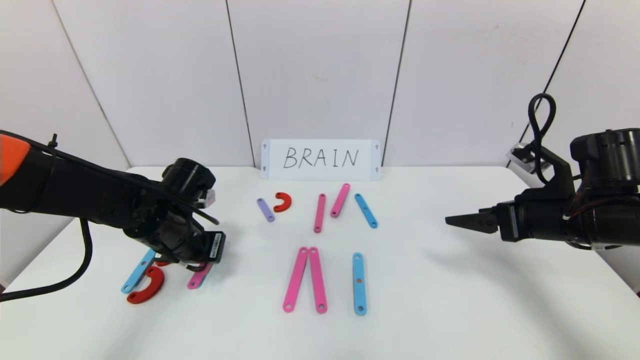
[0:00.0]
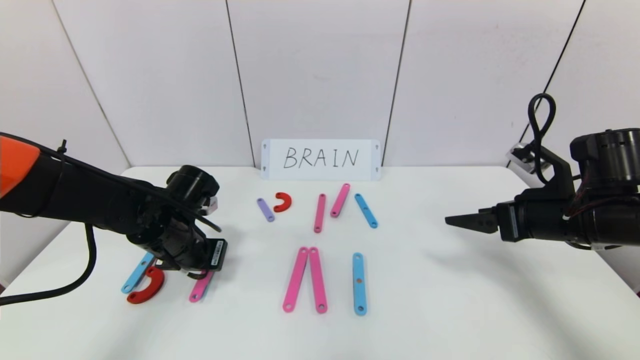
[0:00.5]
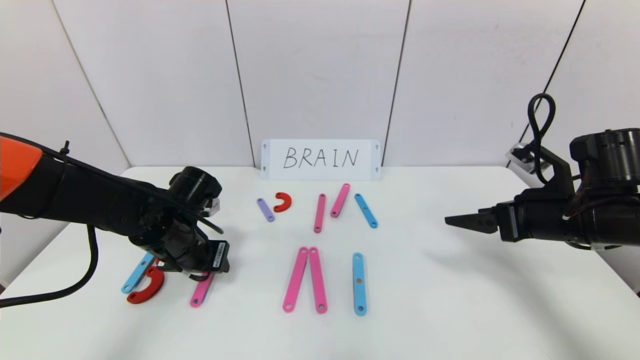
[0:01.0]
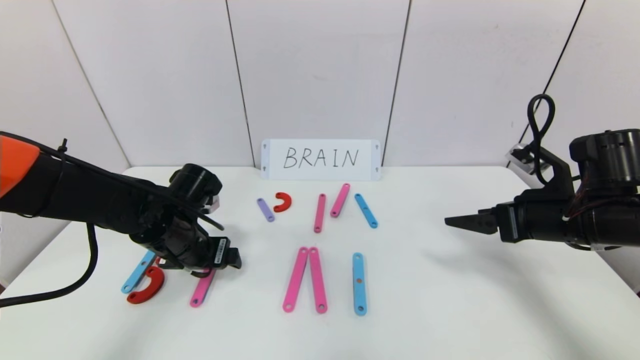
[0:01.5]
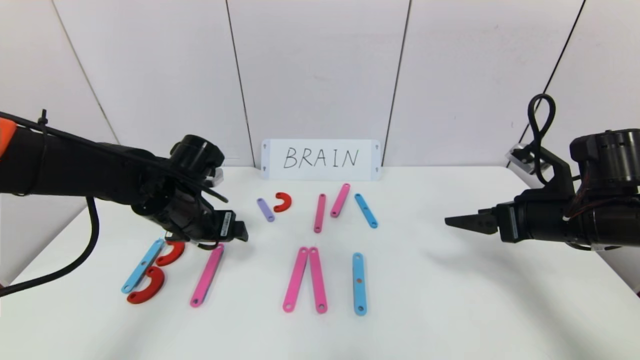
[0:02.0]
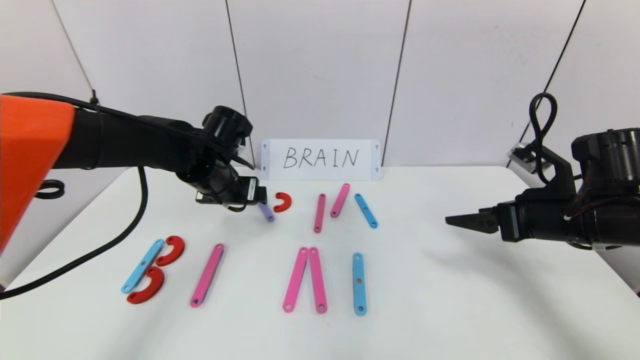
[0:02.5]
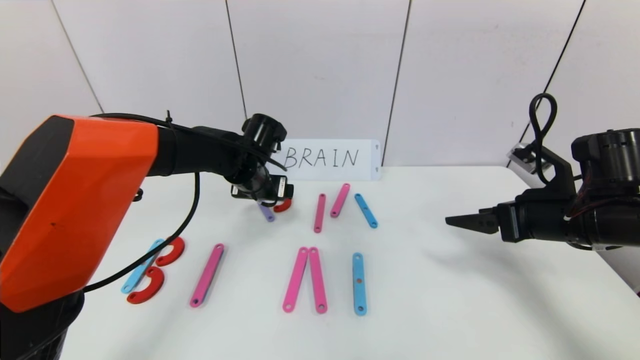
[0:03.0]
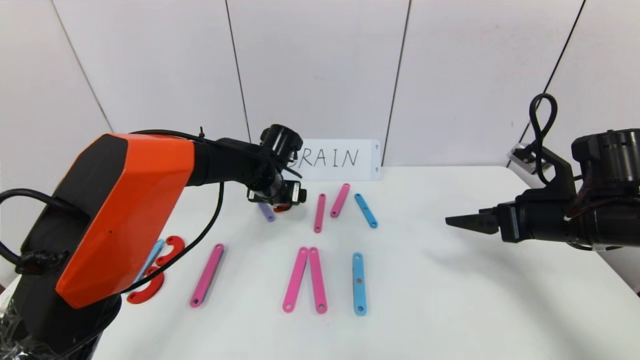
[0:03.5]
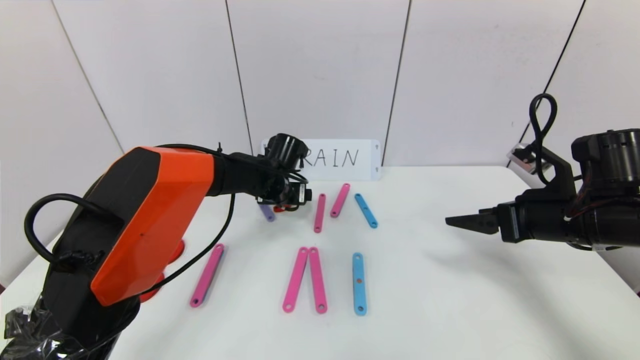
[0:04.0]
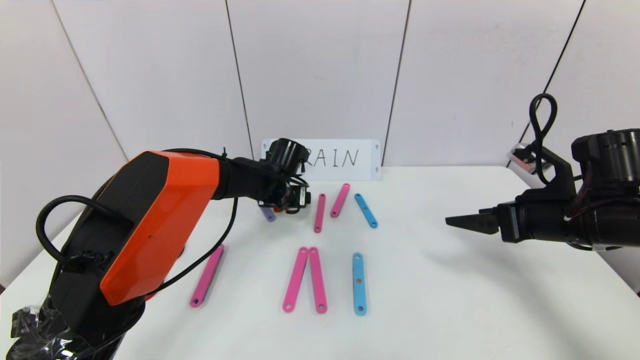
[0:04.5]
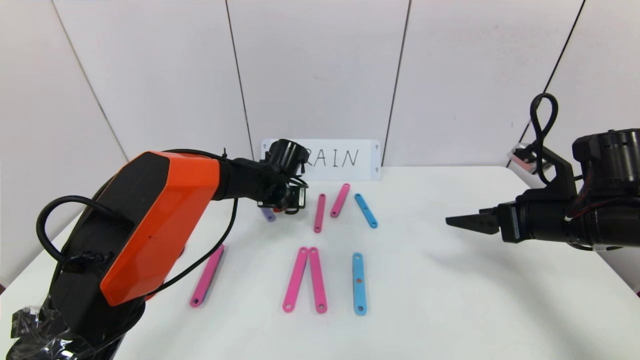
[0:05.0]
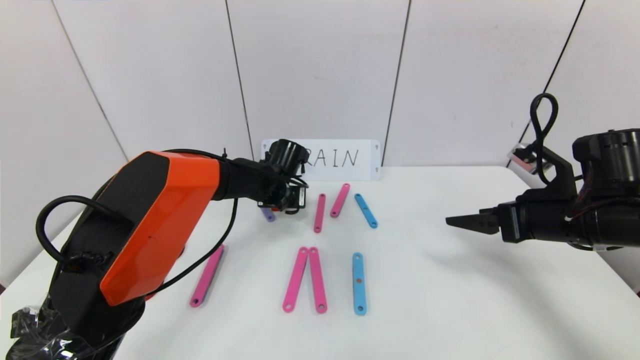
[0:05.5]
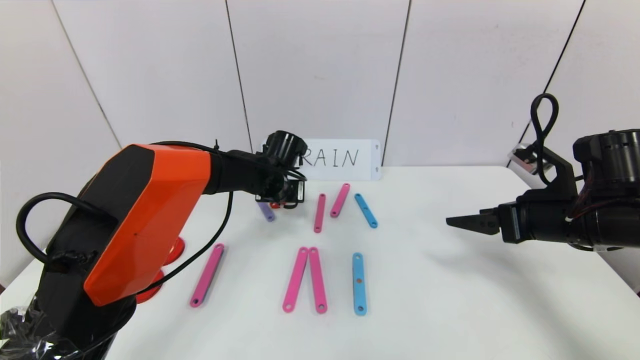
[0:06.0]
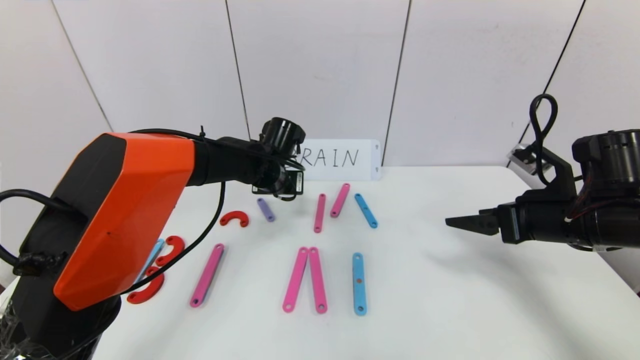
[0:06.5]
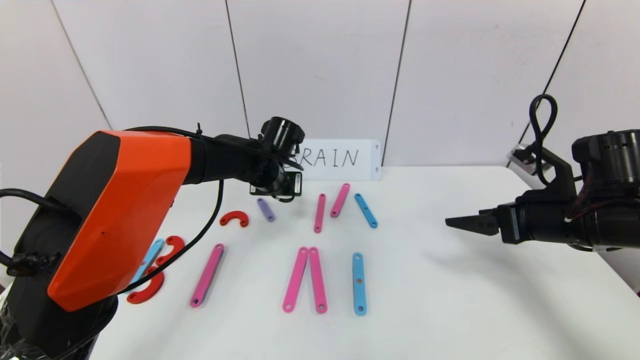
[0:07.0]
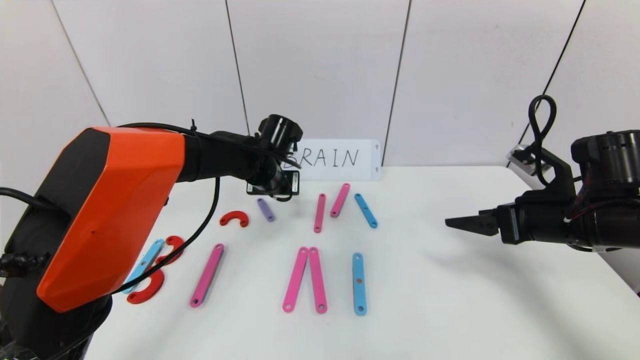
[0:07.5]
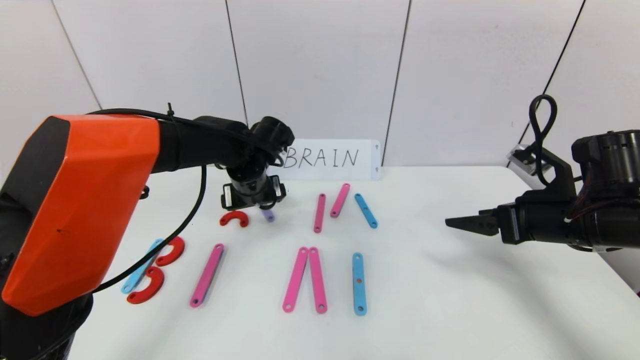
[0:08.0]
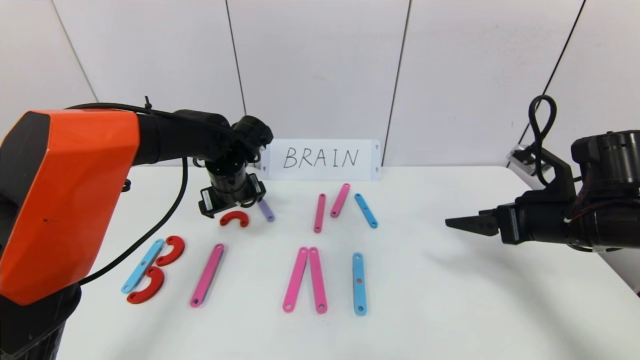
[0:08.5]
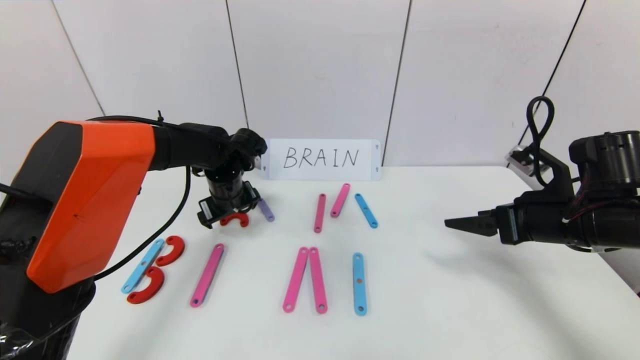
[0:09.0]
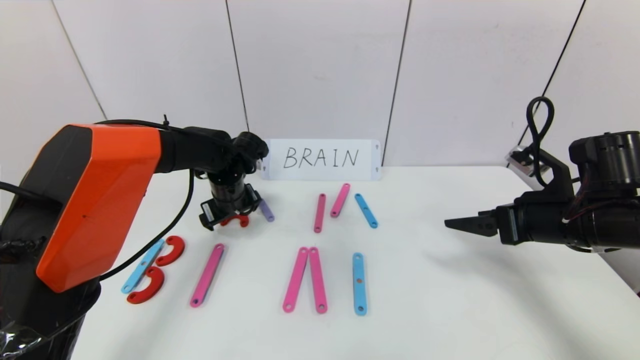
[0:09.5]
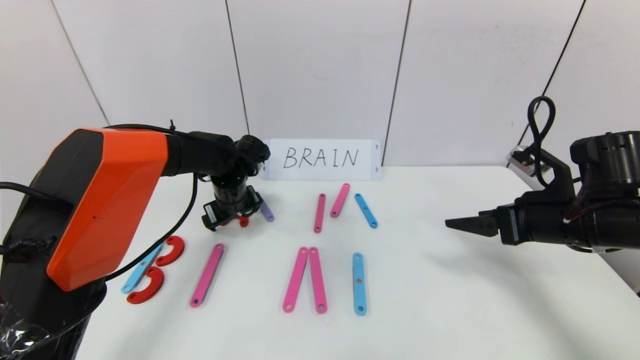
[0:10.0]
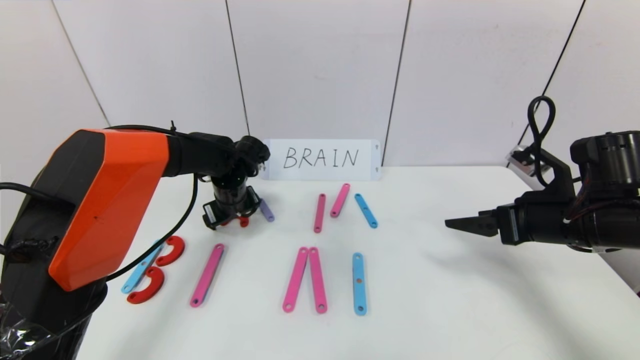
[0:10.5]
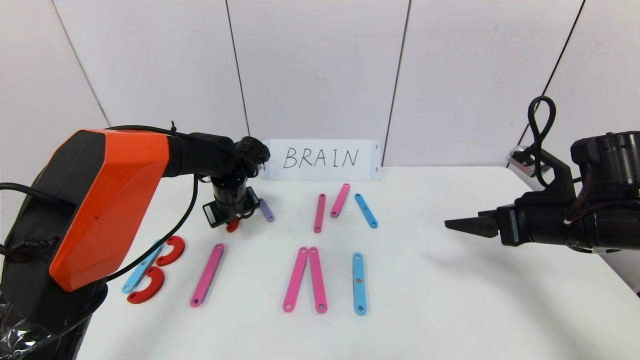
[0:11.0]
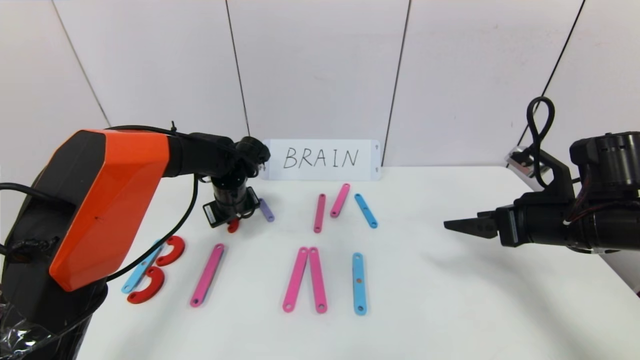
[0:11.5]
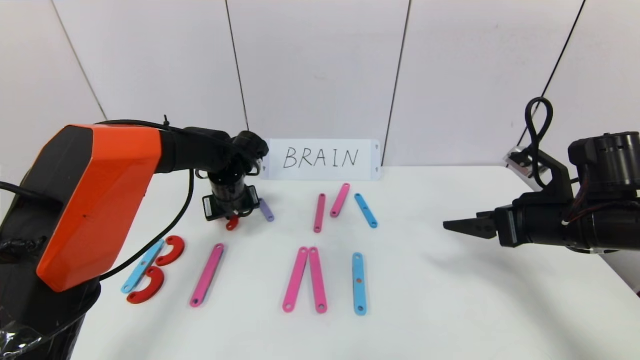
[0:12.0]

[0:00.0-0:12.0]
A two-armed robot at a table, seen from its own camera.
Task of the whole recording: rearrange the word baai as brain.
0.0 to 2.0 s: The left gripper opens its fingers.
2.0 to 4.0 s: The left gripper travels forward and to the right by some 15 cm.
4.0 to 6.0 s: The left gripper closes up.
6.0 to 8.0 s: The left gripper shifts by some 5 cm, and opens its fingers.
8.0 to 10.0 s: The left gripper ends up approximately 5 cm from where it was.
10.0 to 12.0 s: The left gripper closes.

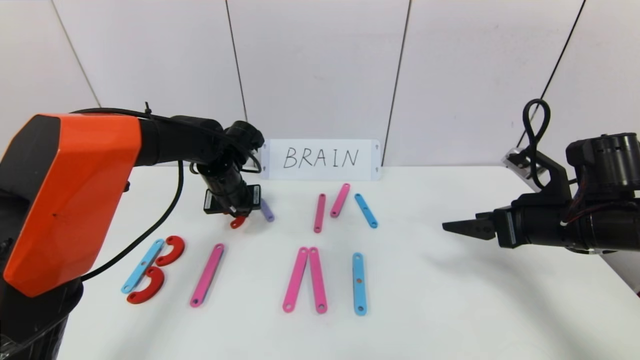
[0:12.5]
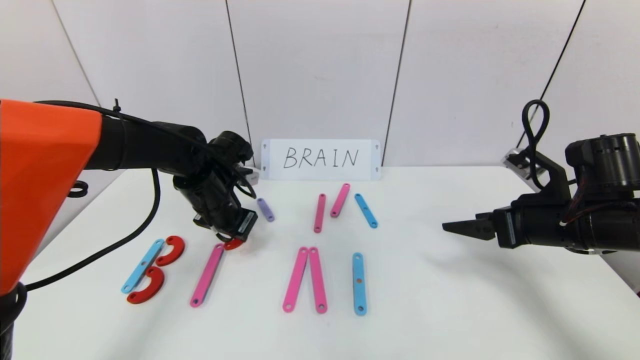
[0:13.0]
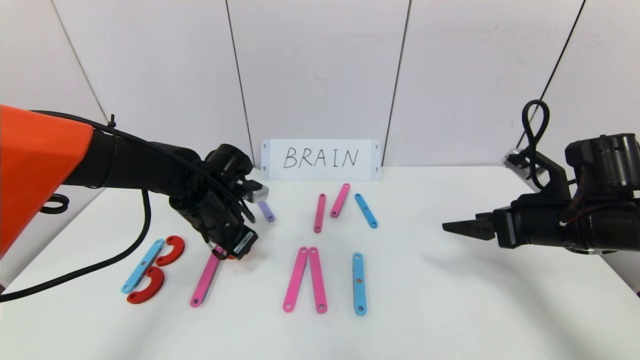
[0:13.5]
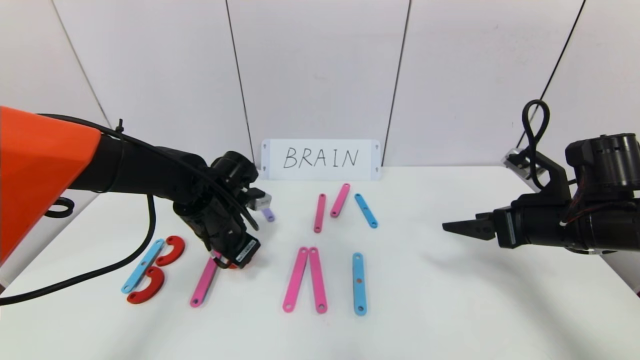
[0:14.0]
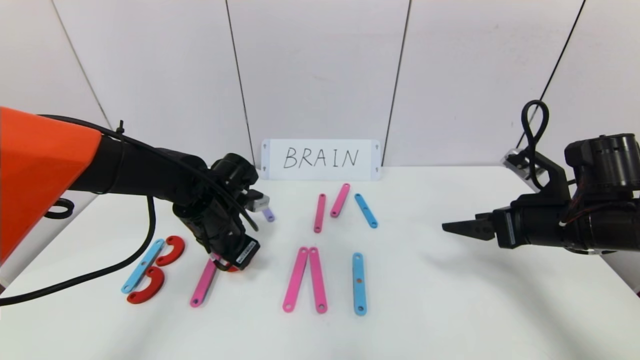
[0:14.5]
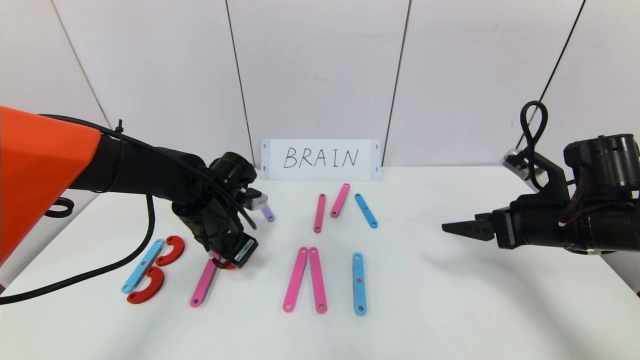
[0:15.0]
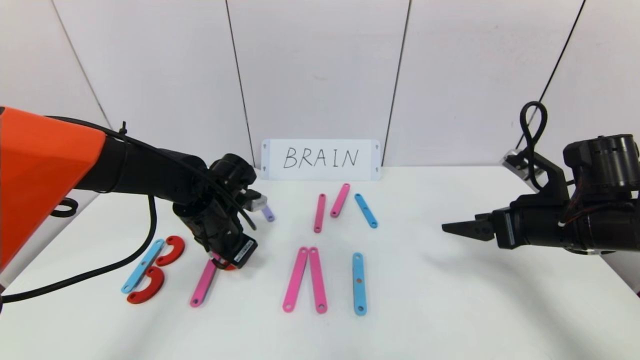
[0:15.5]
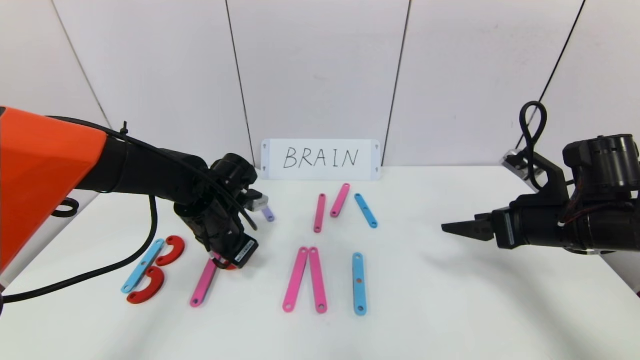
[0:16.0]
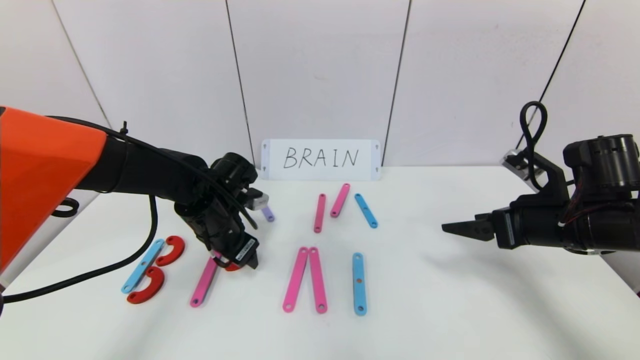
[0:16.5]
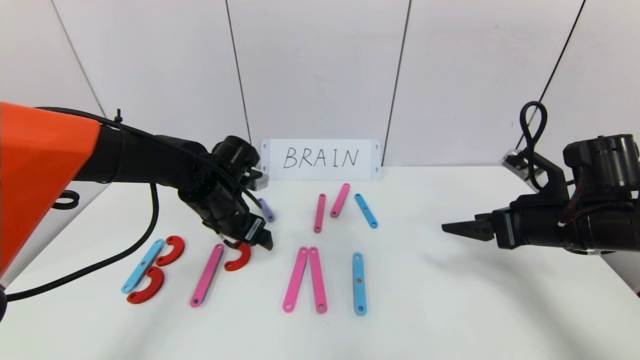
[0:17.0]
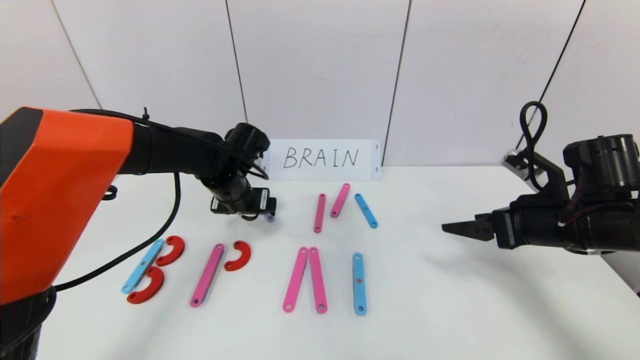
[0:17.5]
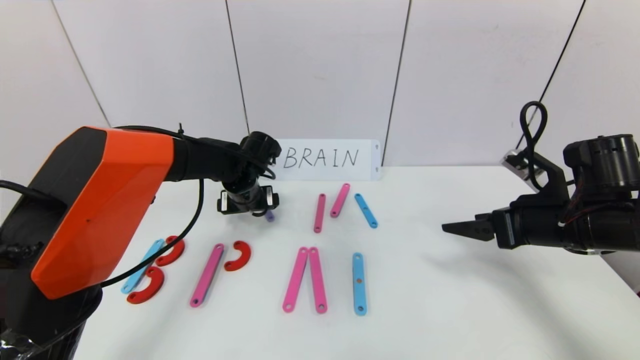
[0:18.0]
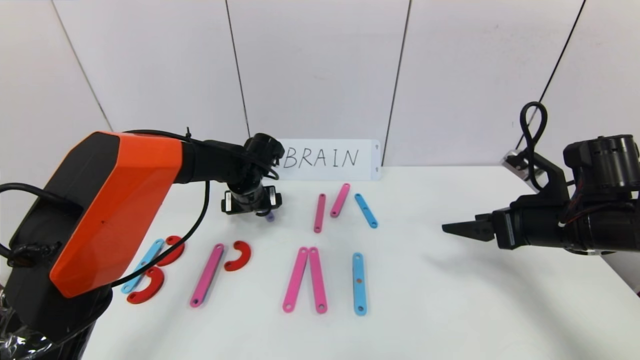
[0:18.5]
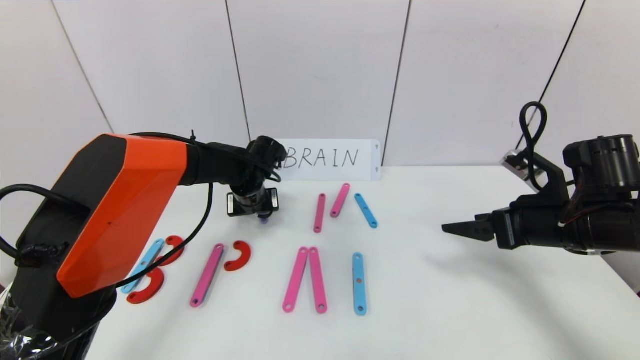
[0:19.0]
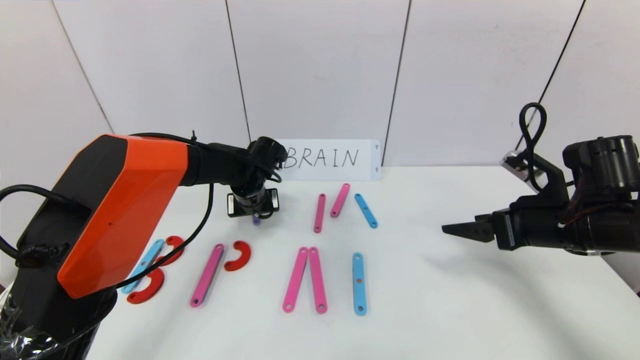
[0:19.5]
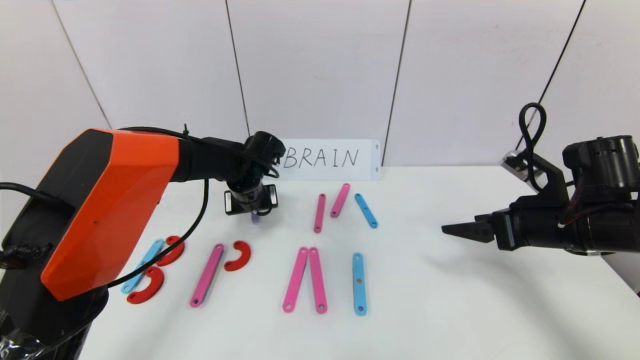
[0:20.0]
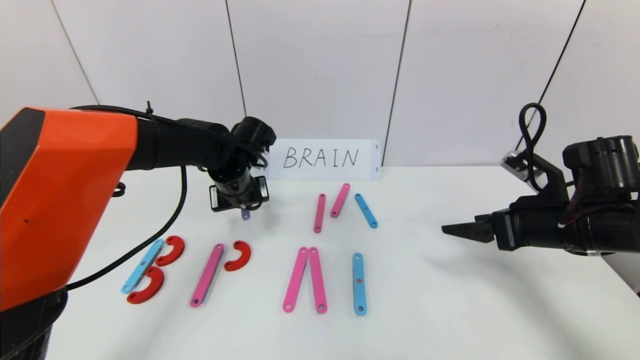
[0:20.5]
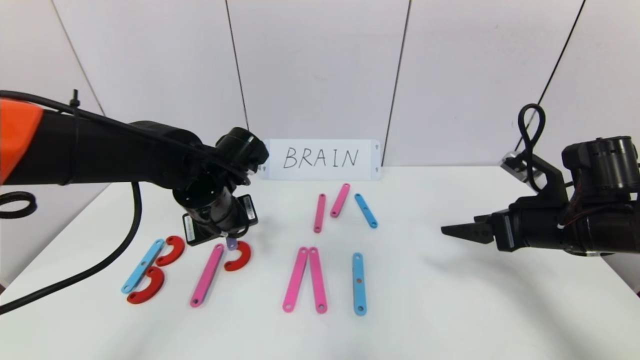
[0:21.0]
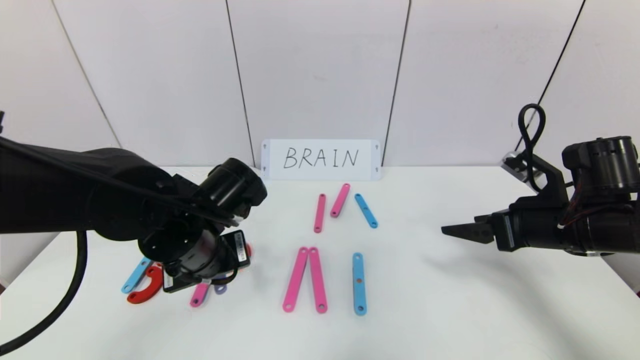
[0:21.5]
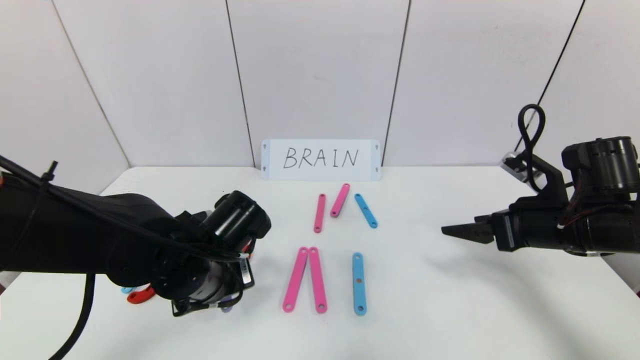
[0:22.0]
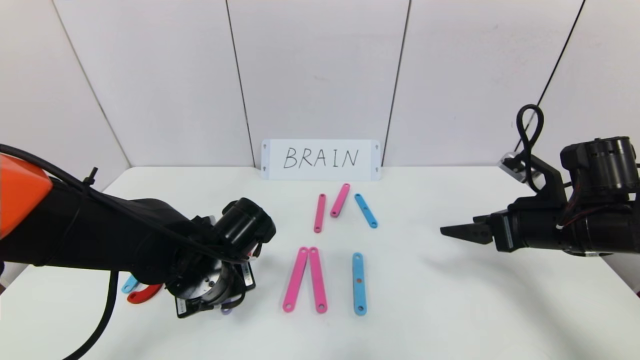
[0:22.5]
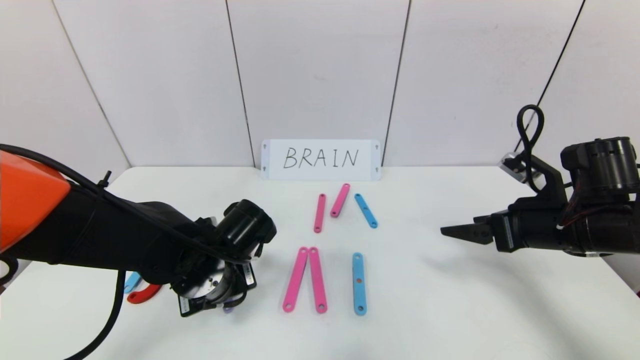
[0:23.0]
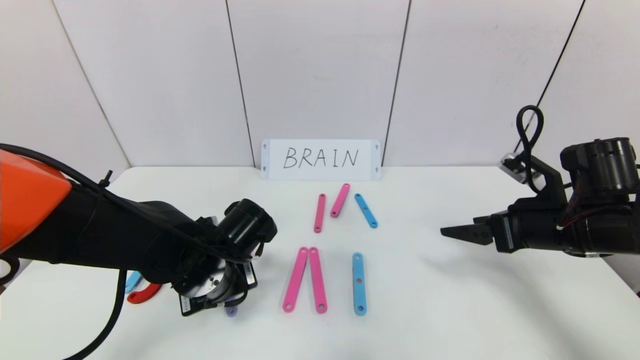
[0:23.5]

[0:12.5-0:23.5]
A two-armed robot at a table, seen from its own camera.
Task of the whole recording: rearrange the word baai as brain.
12.5 to 14.5 s: The left gripper travels backward by some 10 cm.
14.5 to 16.0 s: Neither gripper changes place.
16.0 to 18.0 s: The left gripper goes about 10 cm forward, and opens up.
18.0 to 20.0 s: The left gripper closes up.
20.0 to 21.5 s: The left gripper moves backward, about 20 cm.
21.5 to 23.5 s: The left gripper goes some 5 cm downward, and opens its fingers.
